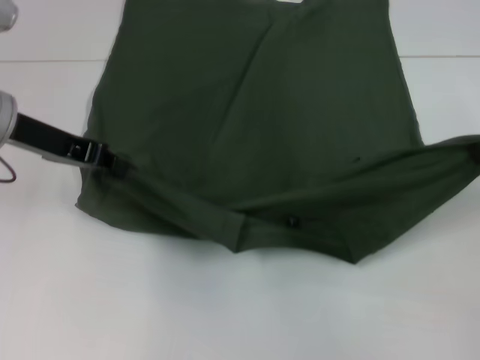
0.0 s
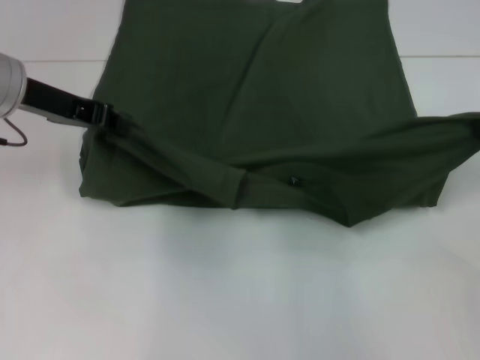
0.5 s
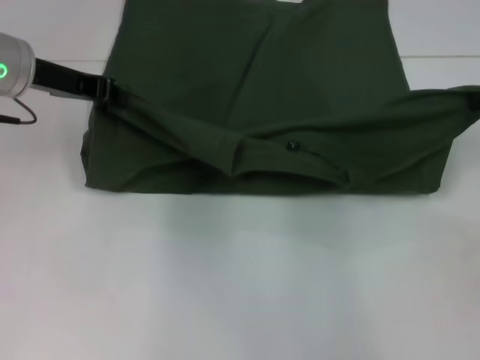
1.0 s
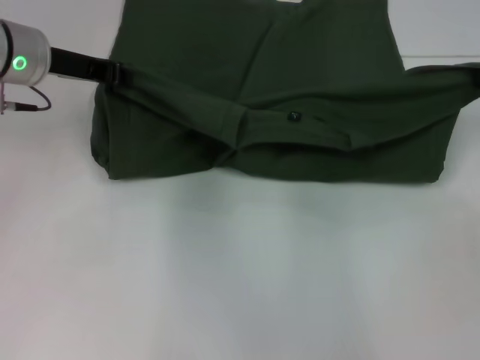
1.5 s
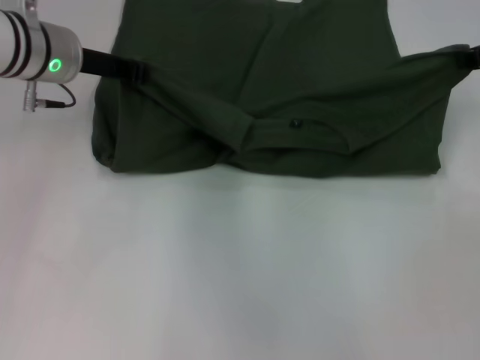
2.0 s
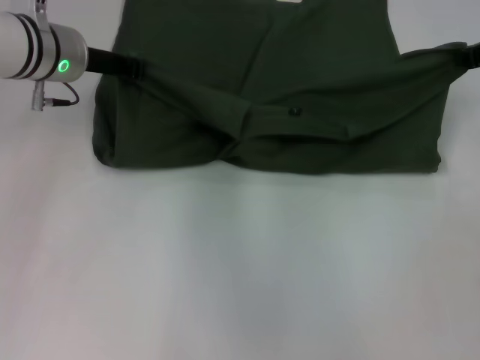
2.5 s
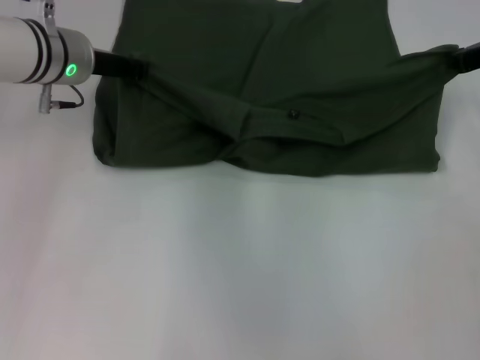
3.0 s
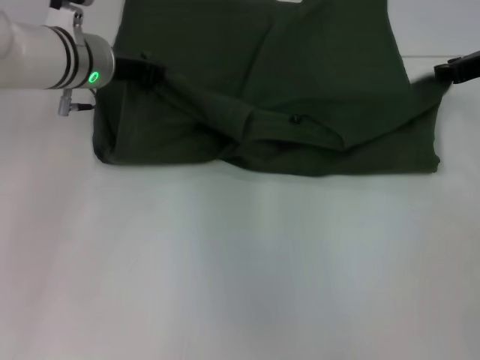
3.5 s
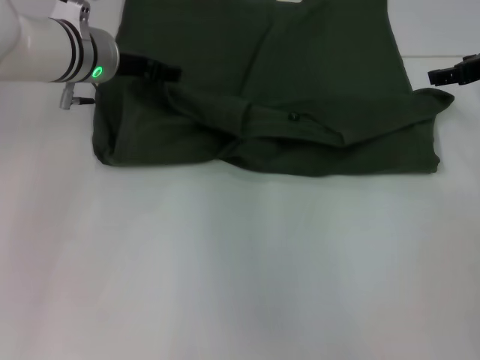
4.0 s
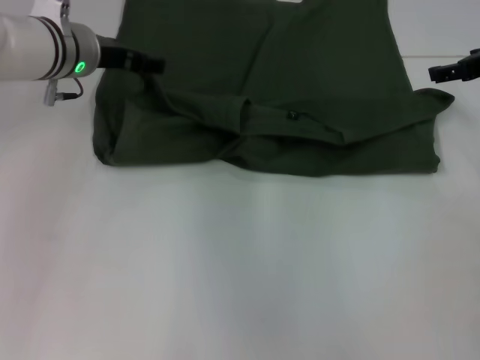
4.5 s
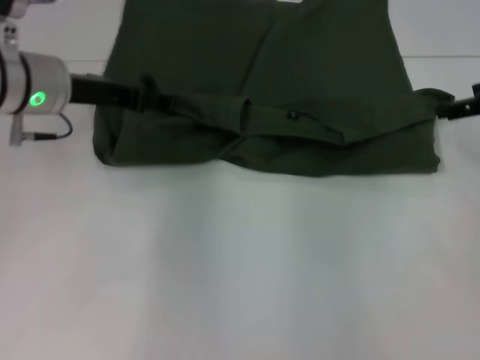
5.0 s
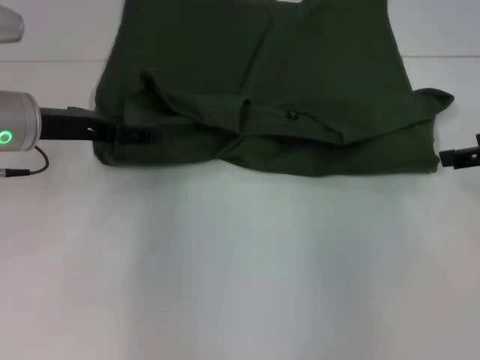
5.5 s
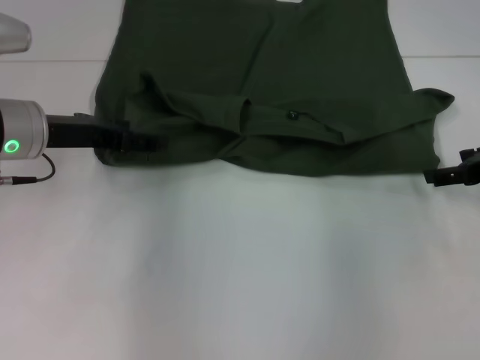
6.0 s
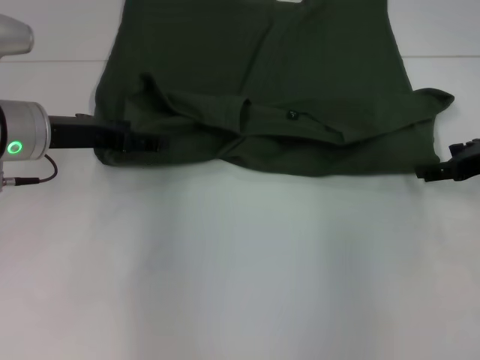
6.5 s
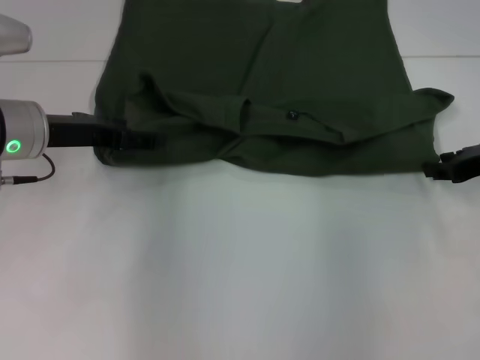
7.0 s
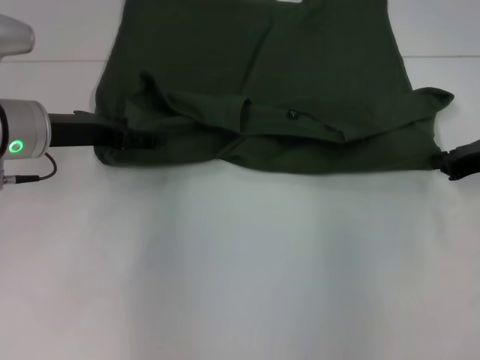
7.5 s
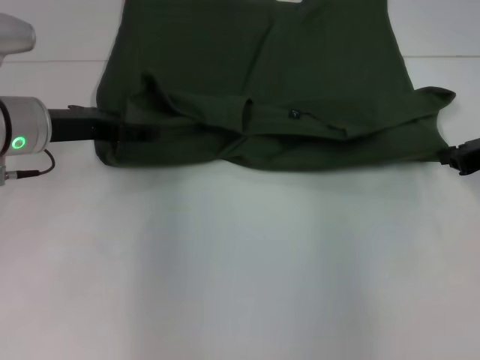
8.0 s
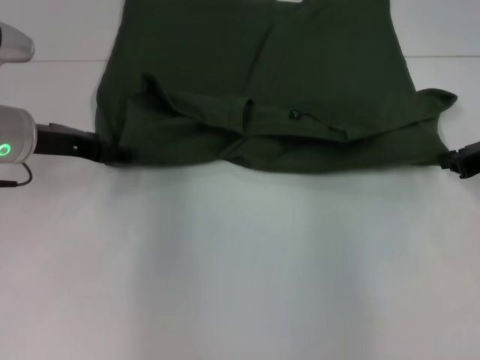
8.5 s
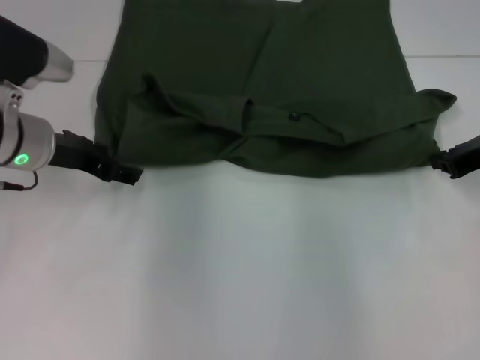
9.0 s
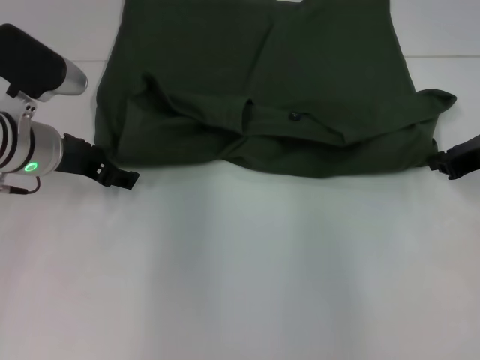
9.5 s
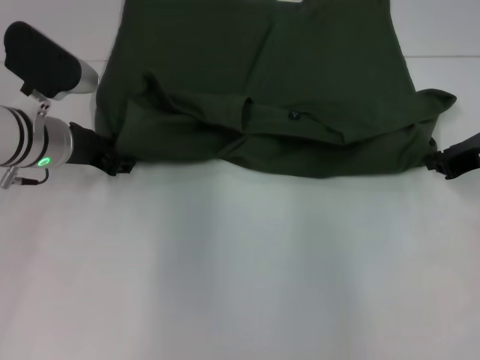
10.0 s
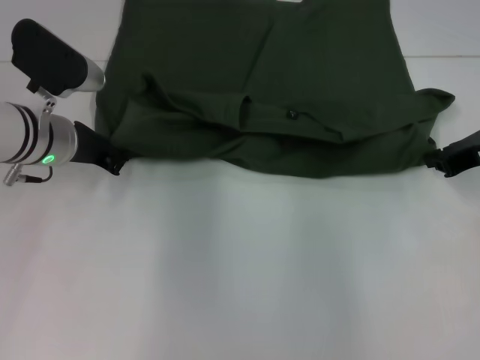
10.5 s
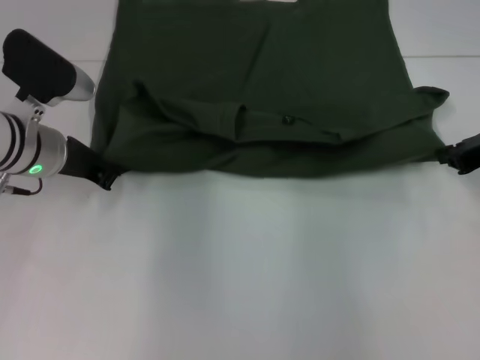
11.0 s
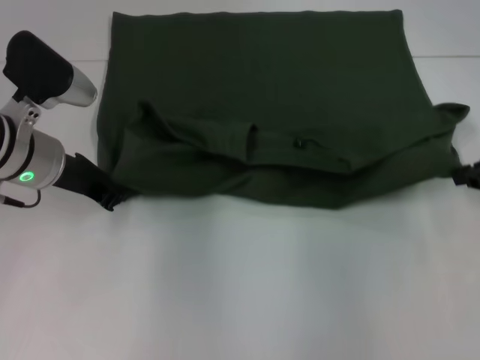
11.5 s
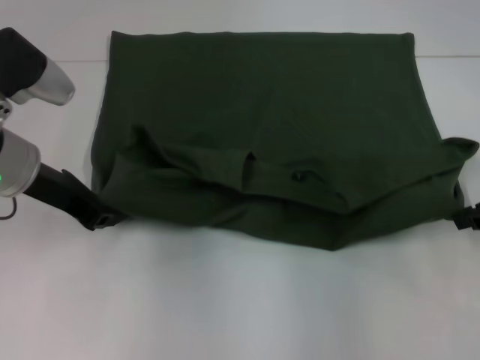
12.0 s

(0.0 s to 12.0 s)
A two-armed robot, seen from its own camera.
Step, 0.0 s - 4.0 s: Fold the clothes with your left hand.
Step, 0.0 s - 4.0 s: Fold the clothes with your right hand.
0.0 s - 2.0 s: Both grippers travel together forward, roughly 10 cm.
2.0 s - 4.0 s: The right gripper opens. The left gripper opens up.
4.0 s - 6.0 s: The right gripper heads backward, covering about 10 cm, and opens, while the left gripper moves backward and to the left, approximately 10 cm, and opens.
6.0 s - 8.0 s: The right gripper closes.
10.0 s - 12.0 s: The left gripper ends up approximately 5 cm from where it was, and closes its fingers, while the right gripper is displaced backward by approximately 5 cm.

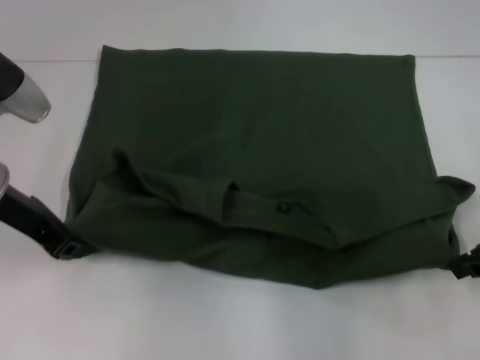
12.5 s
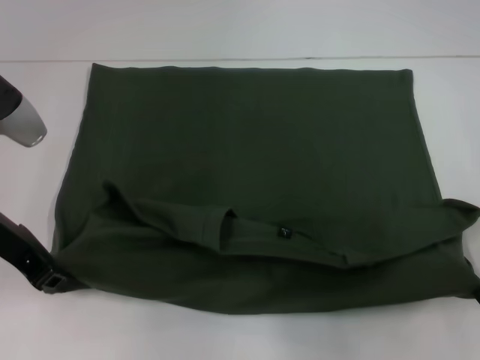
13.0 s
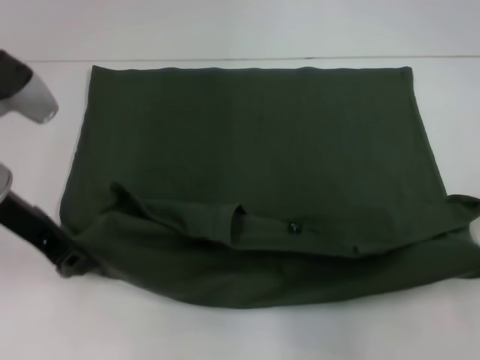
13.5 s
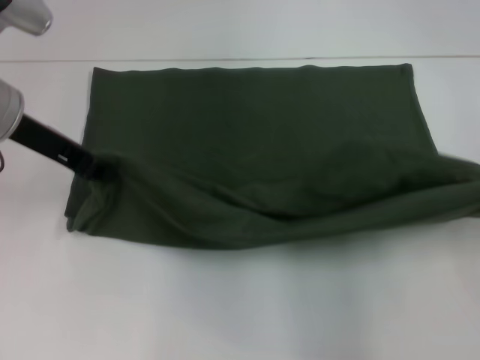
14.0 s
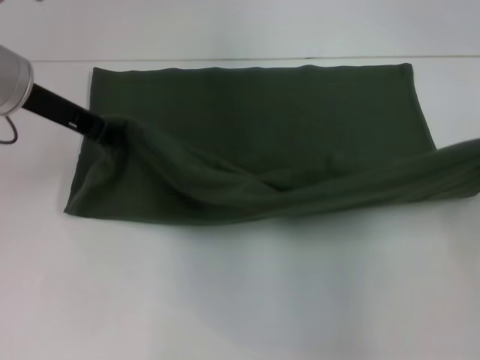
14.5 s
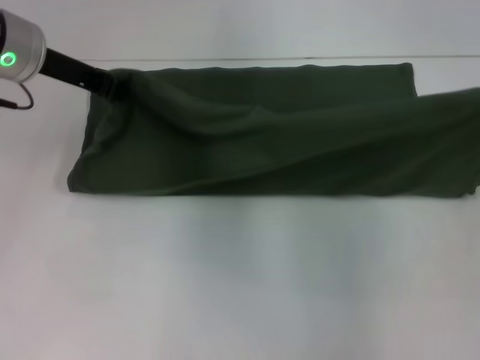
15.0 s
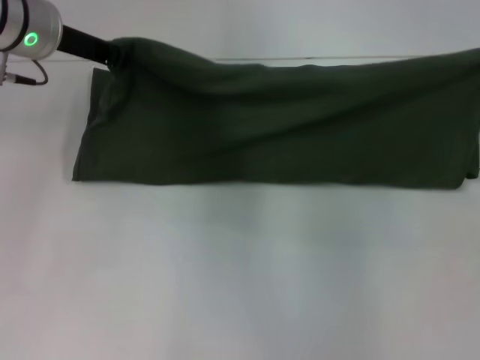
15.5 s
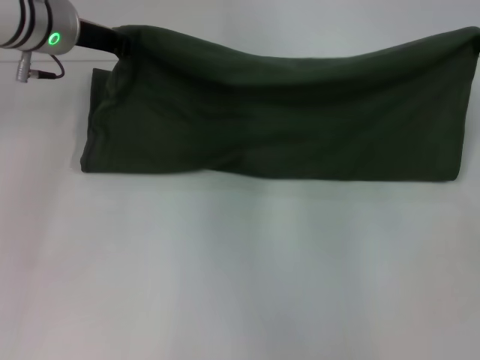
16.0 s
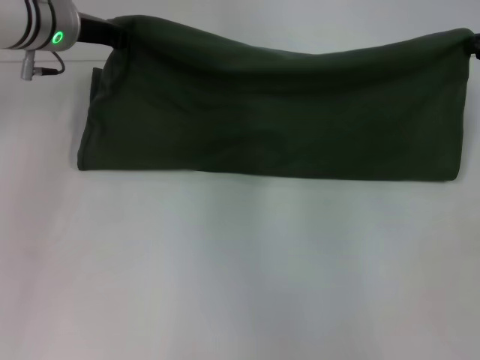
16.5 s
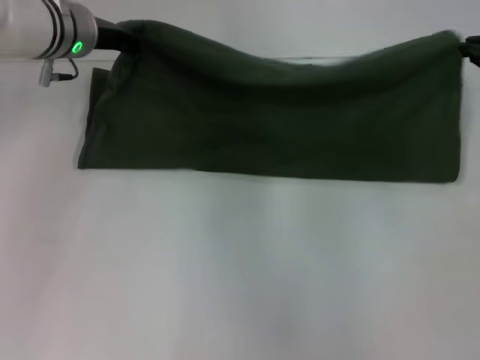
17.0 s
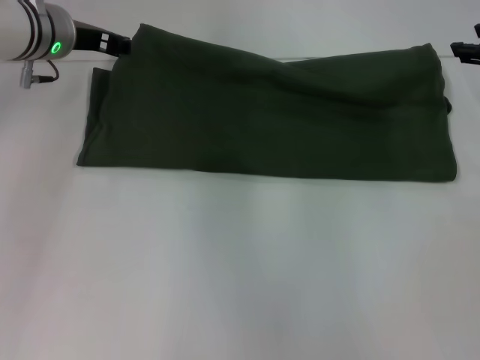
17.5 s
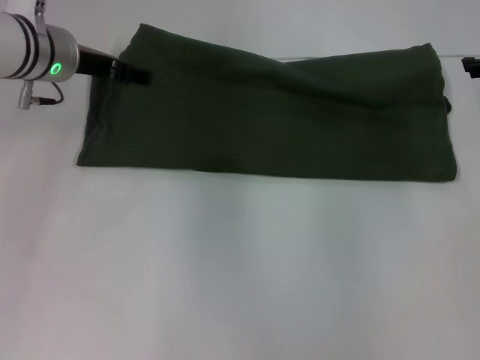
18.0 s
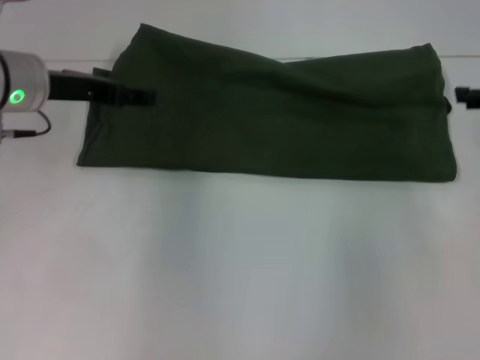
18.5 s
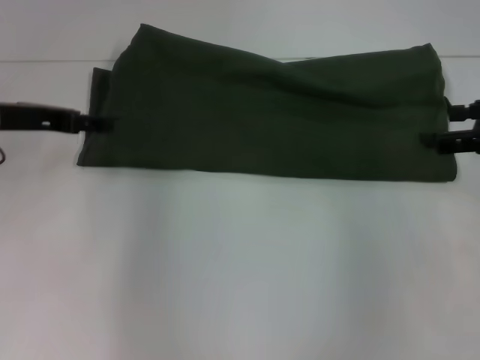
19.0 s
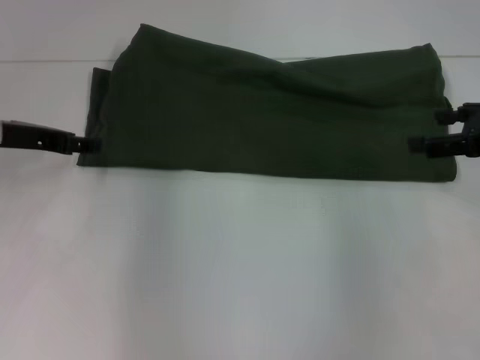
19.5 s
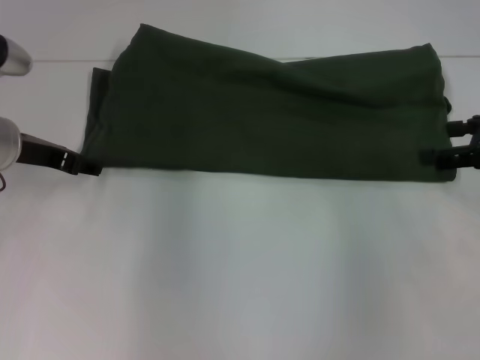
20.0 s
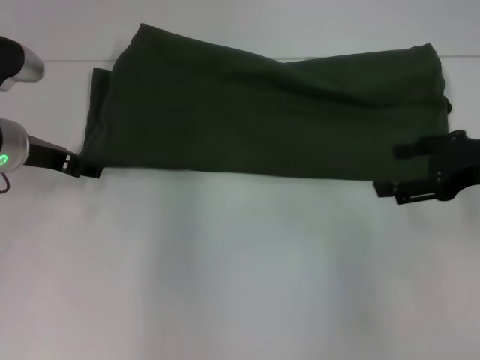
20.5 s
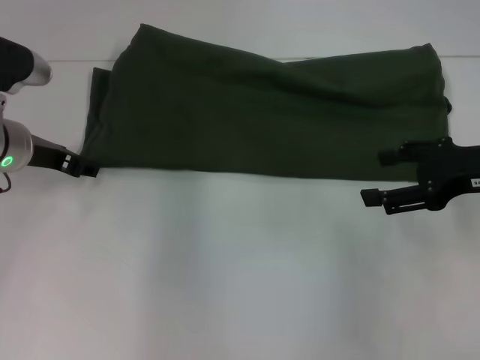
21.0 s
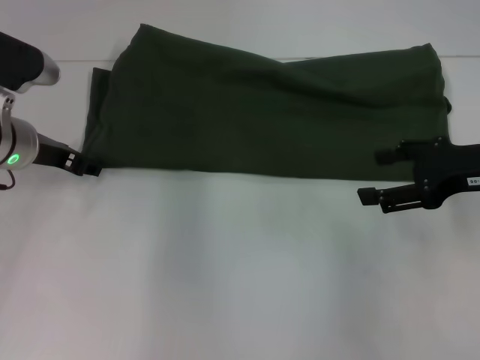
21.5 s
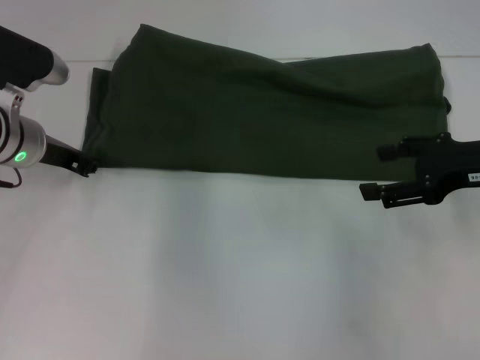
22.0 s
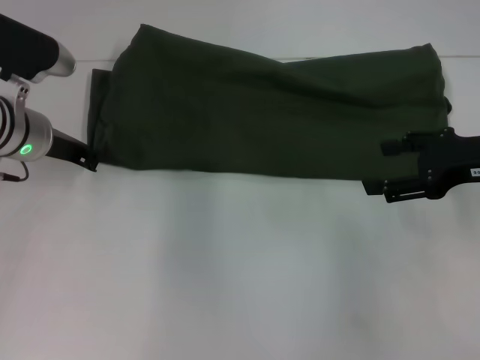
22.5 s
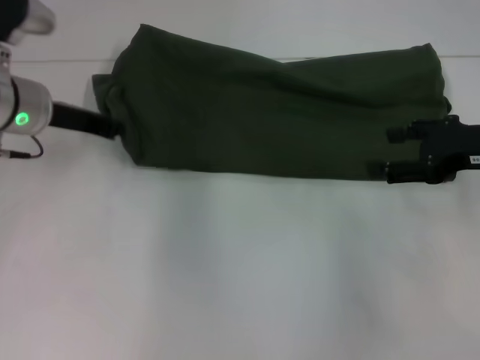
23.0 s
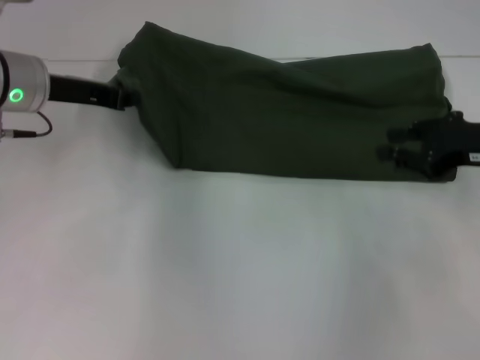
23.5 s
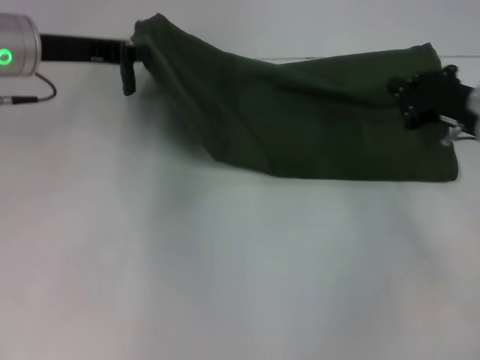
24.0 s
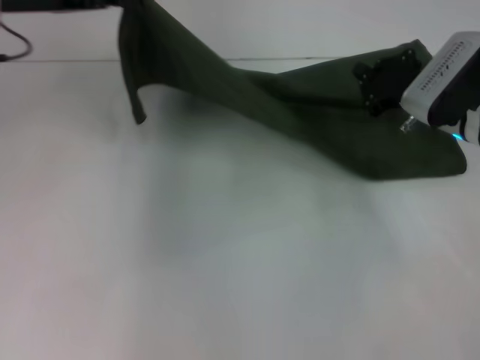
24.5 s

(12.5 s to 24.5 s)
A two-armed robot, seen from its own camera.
Step, 13.5 s - 17.0 s: Fold the clothes with your right hand.
12.5 s - 14.5 s: The left gripper shifts roughly 5 cm upward; the right gripper is displaced upward and to the right by about 10 cm.
14.5 s - 16.5 s: The left gripper is displaced forward by roughly 5 cm. Meanwhile the right gripper travels forward and downward by some 15 cm.
16.5 s - 18.5 s: The two grippers go some 5 cm backward. The left gripper opens up. Meanwhile the right gripper opens.
18.5 s - 20.5 s: The left gripper shifts some 5 cm downward. Meanwhile the right gripper travels to the left by roughly 5 cm.
20.5 s - 22.5 s: The left gripper closes.
22.5 s - 24.5 s: The left gripper moves upward, roughly 15 cm, while the right gripper heads forward, downward and to the left, covering some 10 cm, and closes up.

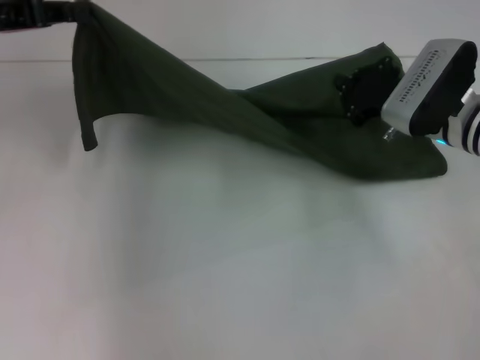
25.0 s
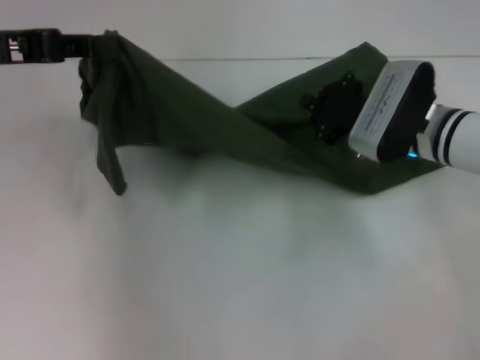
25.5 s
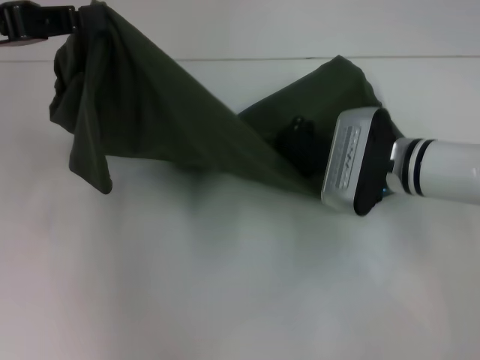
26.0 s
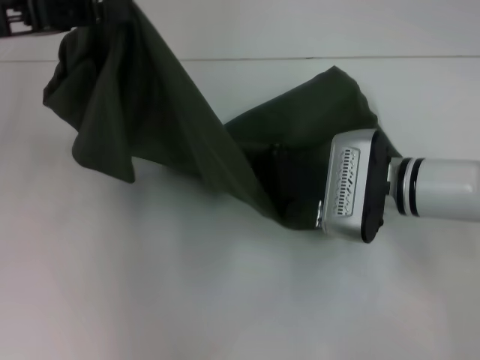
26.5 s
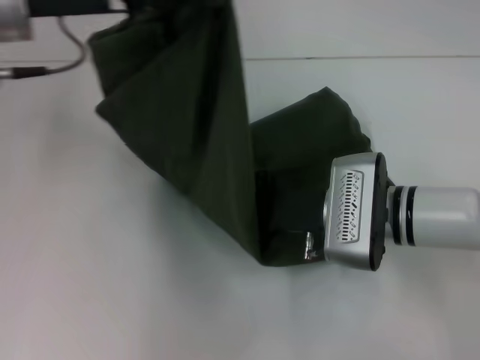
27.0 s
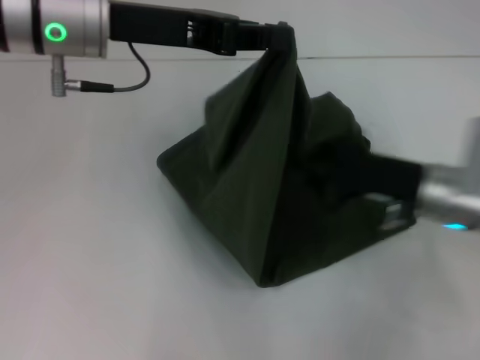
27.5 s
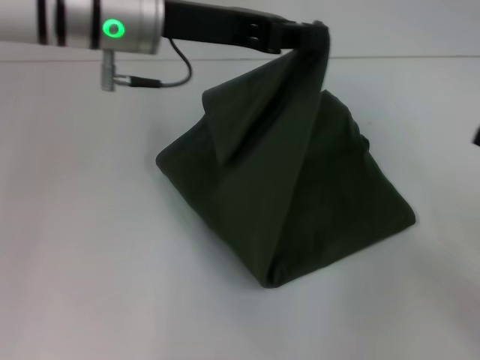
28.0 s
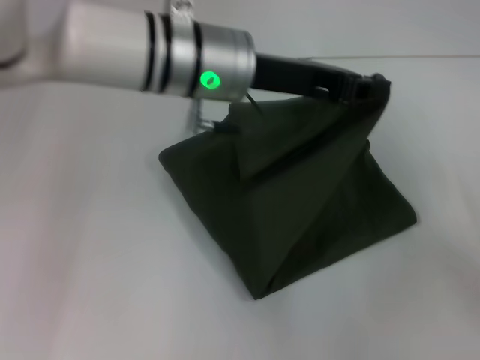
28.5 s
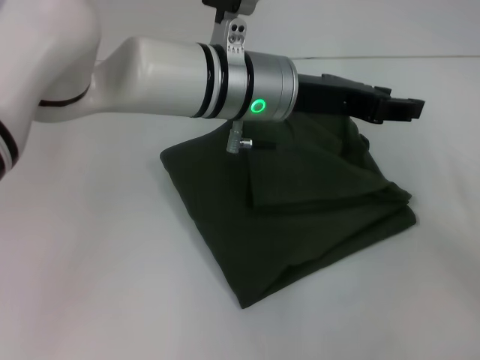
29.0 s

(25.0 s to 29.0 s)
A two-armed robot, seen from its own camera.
Step, 25.0 s - 28.5 s: Fold the clothes with your left hand.
25.0 s - 27.0 s: The right gripper travels to the left and backward by approximately 10 cm, while the left gripper moves to the right, some 10 cm.
27.0 s - 29.0 s: The grippers both shift to the right by approximately 25 cm. The left gripper opens.
